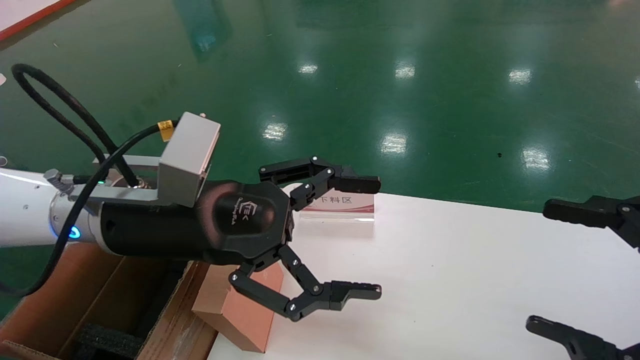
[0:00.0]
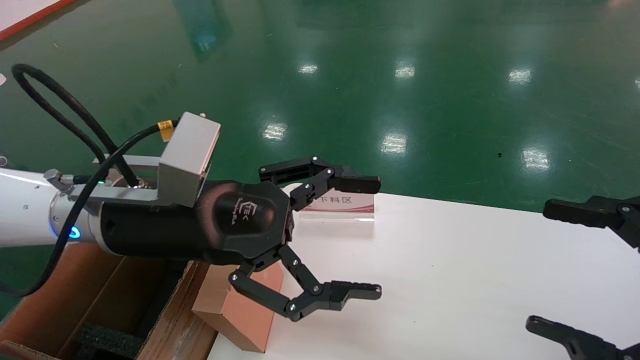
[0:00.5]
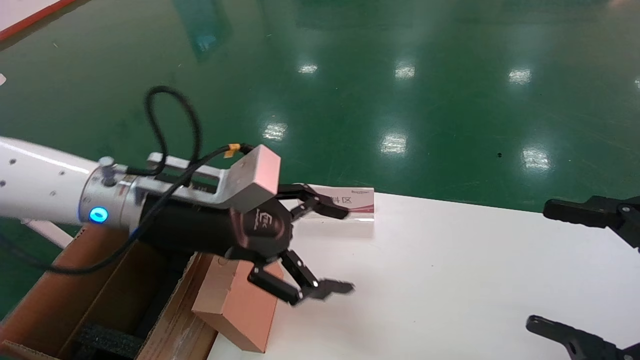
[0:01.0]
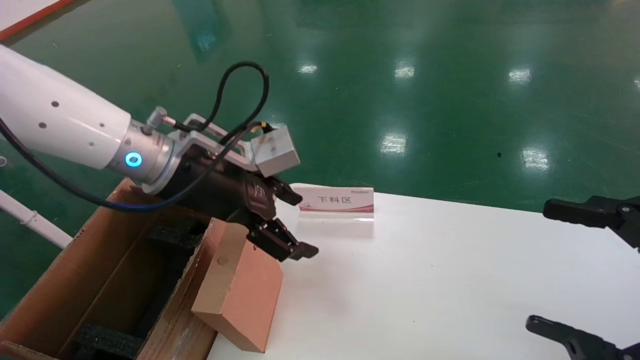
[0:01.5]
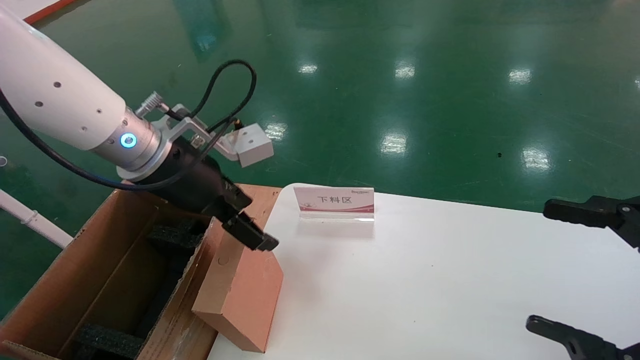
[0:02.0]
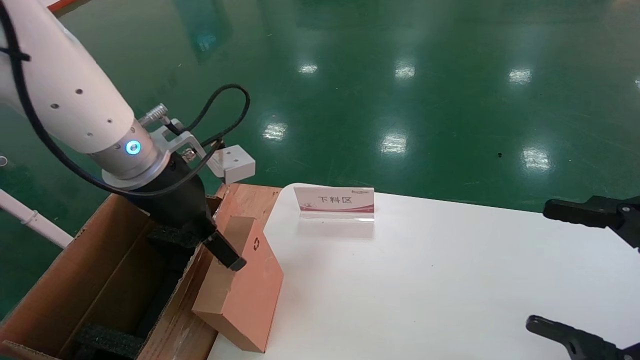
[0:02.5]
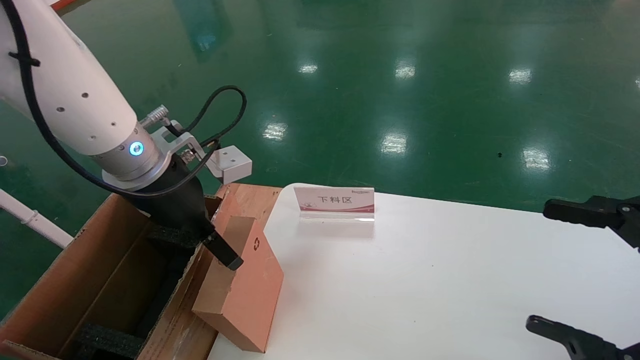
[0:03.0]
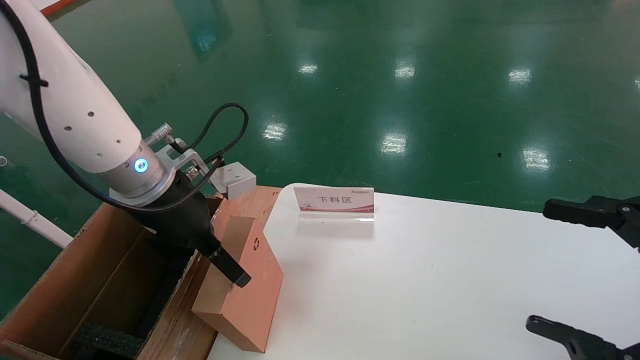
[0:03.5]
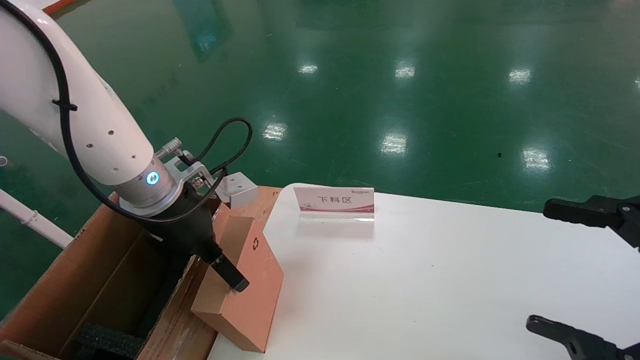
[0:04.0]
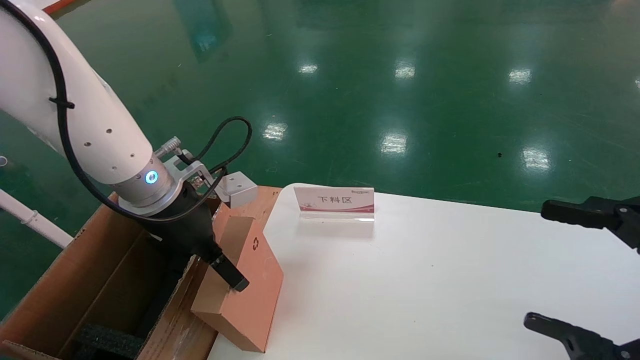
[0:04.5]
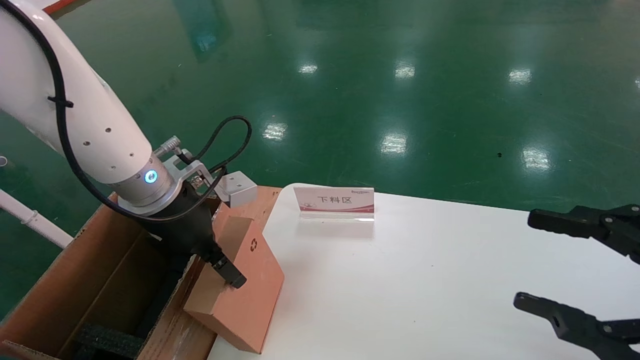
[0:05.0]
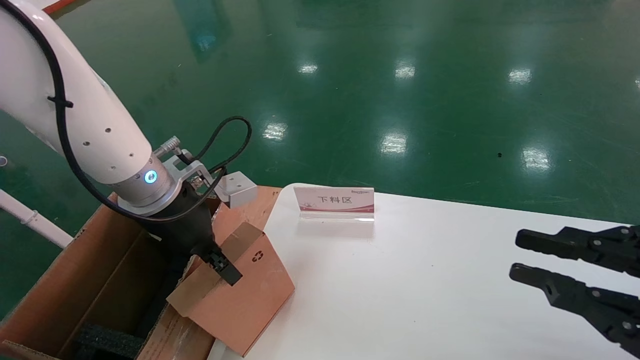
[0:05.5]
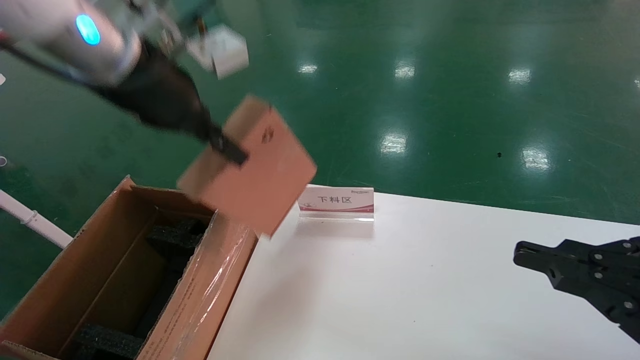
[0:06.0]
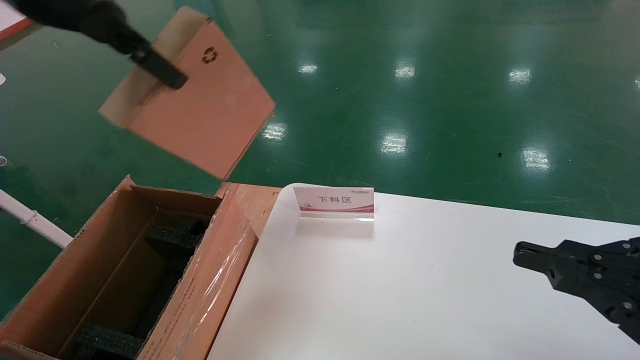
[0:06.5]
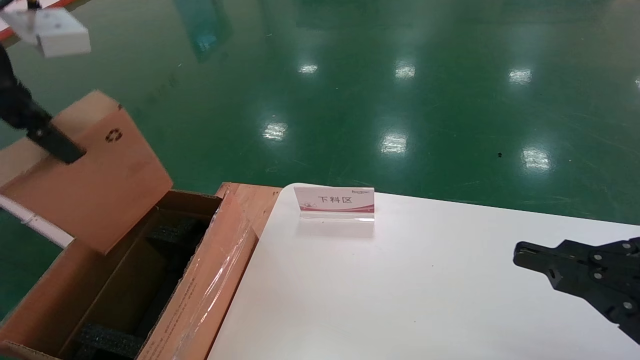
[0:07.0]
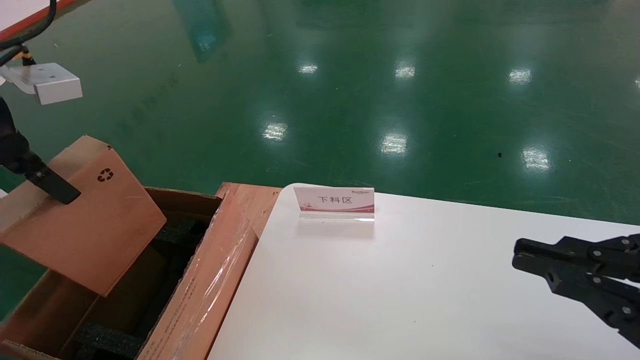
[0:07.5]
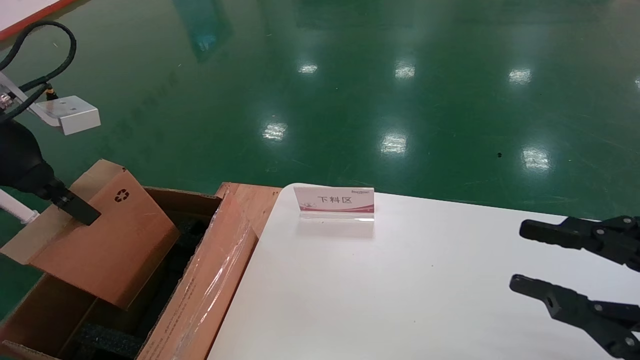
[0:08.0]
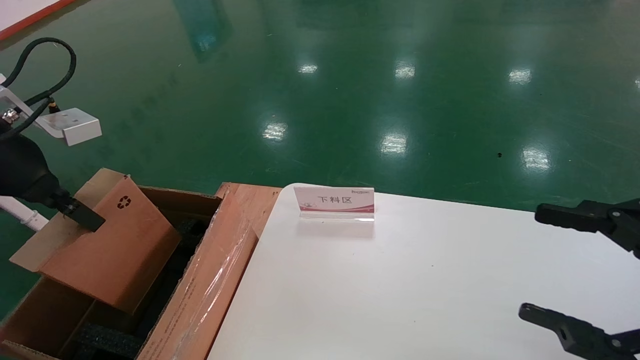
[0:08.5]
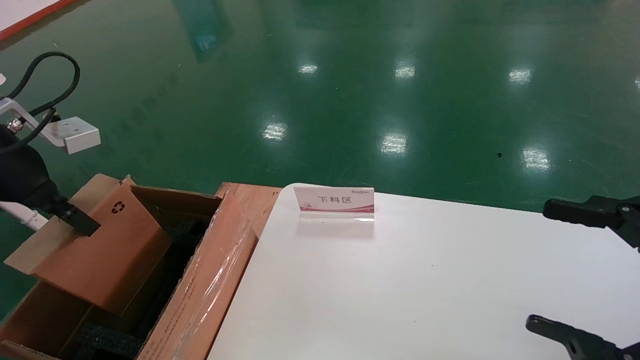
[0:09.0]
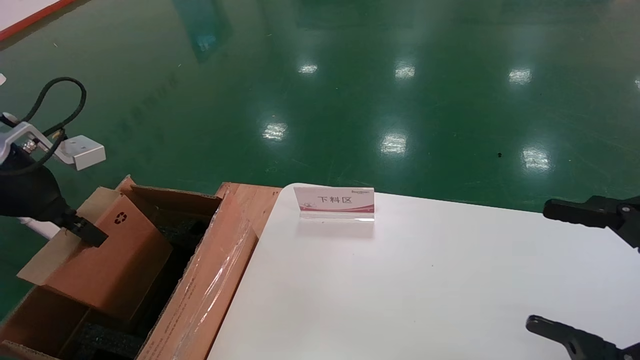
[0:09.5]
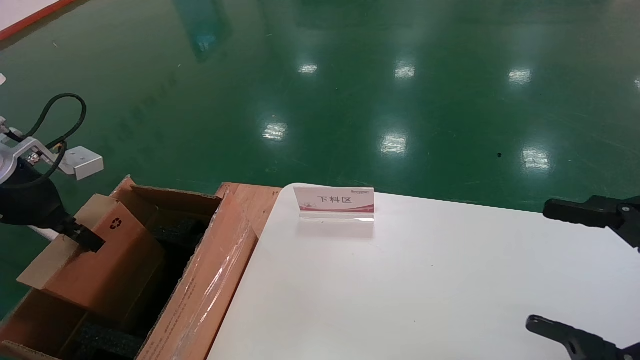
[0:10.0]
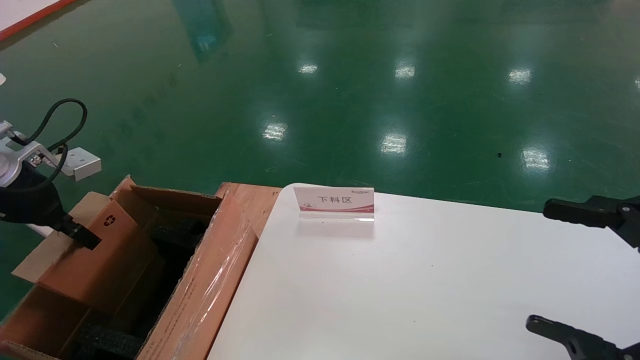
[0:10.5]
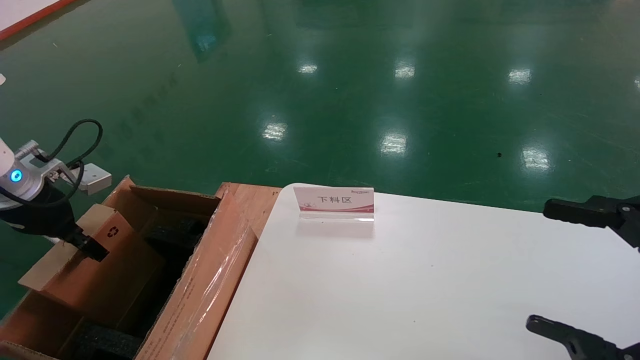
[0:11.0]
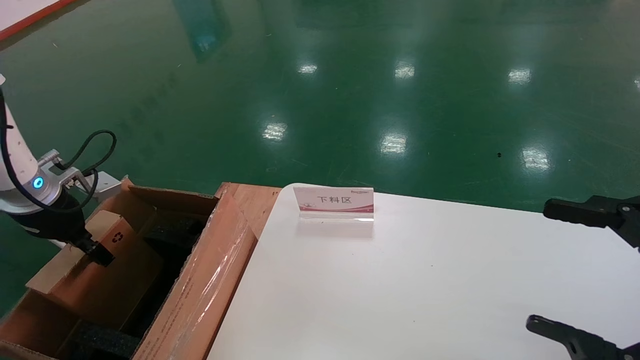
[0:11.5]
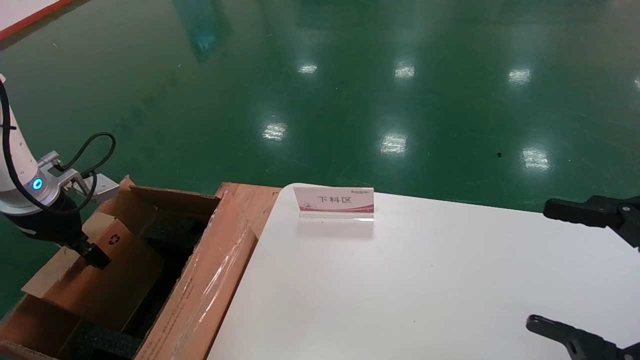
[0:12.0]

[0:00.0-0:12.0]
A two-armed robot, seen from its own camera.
Task of the whole recording: pick up the small cardboard box and load it into the large cardboard box.
Step, 0:01.5 to 0:05.0: Pick up the mouse and power cord box.
0:00.0 to 0:02.0: The left gripper moves forward, about 5 cm.
0:04.0 to 0:06.0: The left gripper heads upward, covering approximately 15 cm, and closes its fingers. The right gripper closes its fingers.
0:06.0 to 0:08.0: The left gripper shifts roughly 15 cm to the left and backward.
0:08.0 to 0:10.0: The left gripper moves downward and to the left, some 10 cm. Meanwhile the right gripper opens up.
0:10.0 to 0:12.0: The left gripper travels downward by roughly 5 cm.

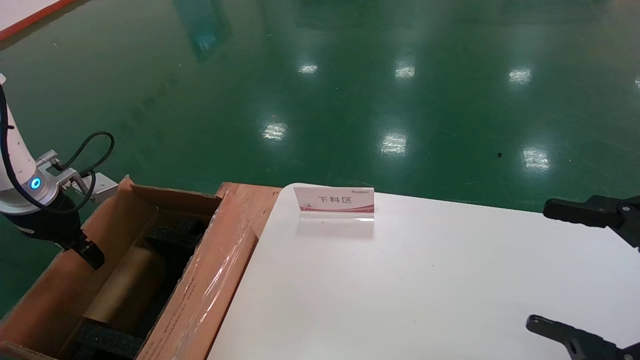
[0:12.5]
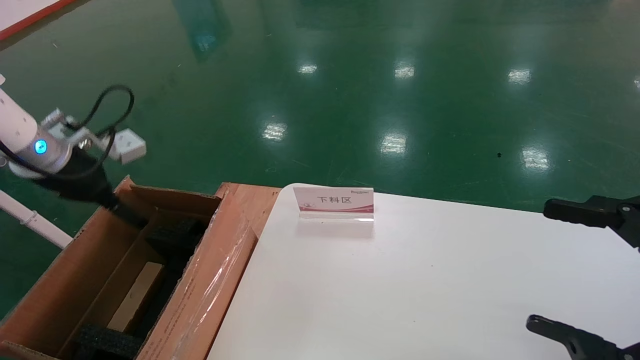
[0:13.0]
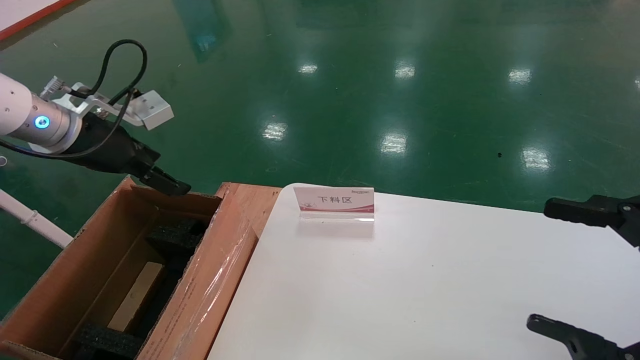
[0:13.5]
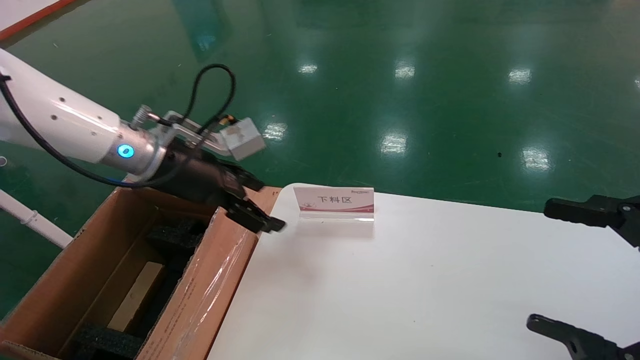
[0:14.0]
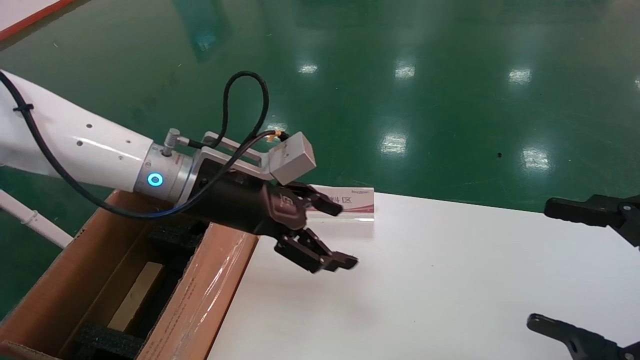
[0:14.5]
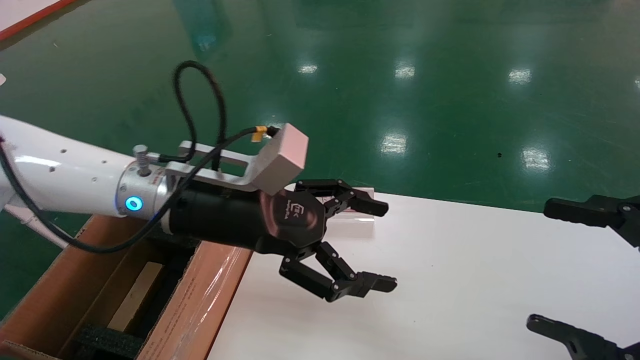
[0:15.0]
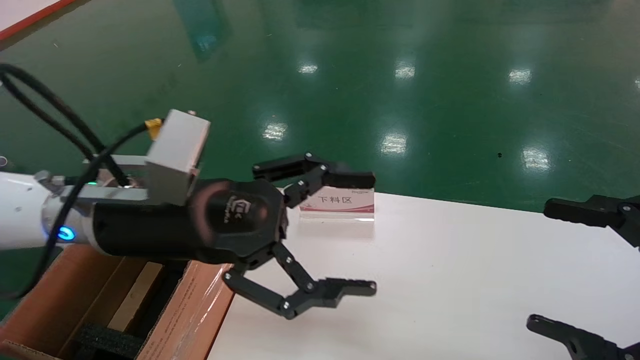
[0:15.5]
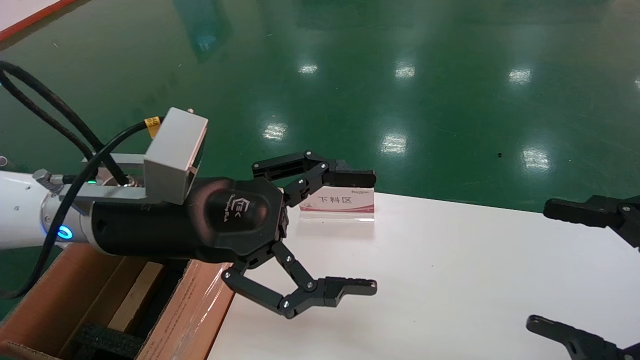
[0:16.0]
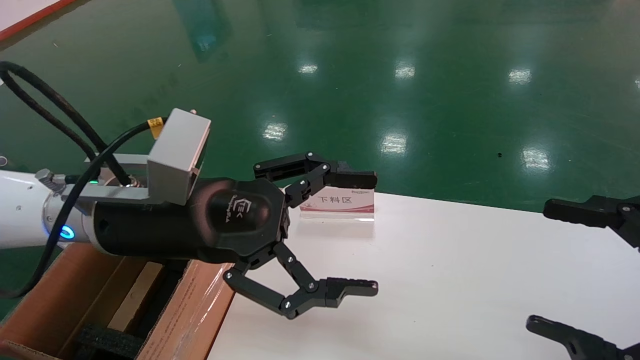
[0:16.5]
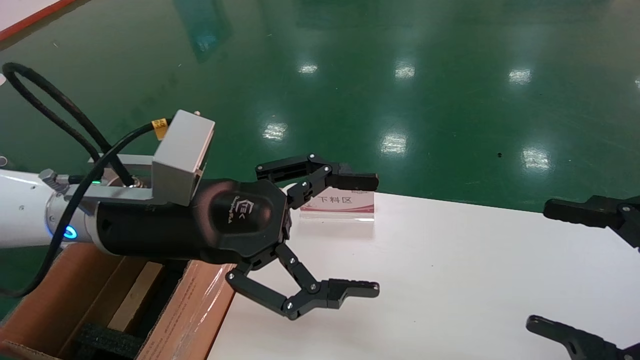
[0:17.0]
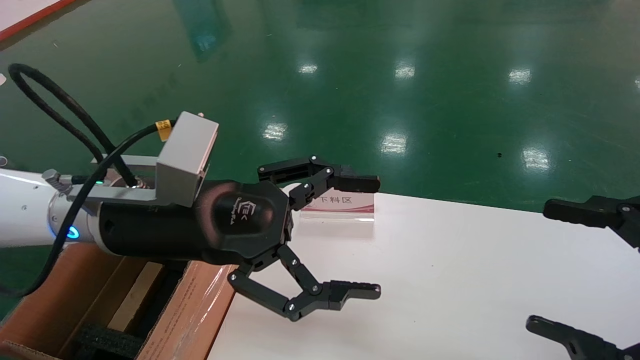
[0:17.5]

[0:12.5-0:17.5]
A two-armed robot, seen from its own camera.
Task of the whole recording: pick up the small cardboard box and load it into the large cardboard box.
0:12.5 to 0:15.0: The left gripper moves to the right, roughly 30 cm, and opens up.
0:15.0 to 0:17.5: The left gripper ends up roughly 5 cm from where it was.
